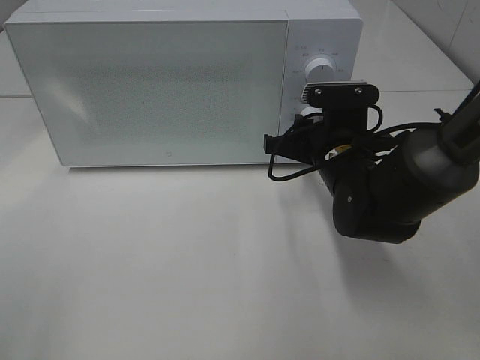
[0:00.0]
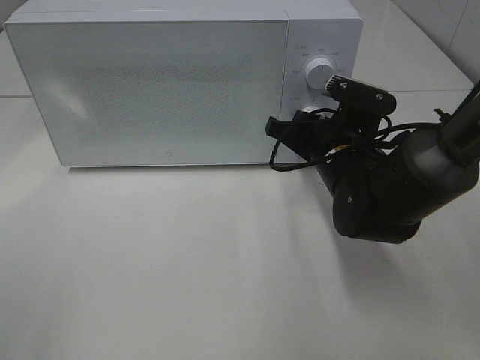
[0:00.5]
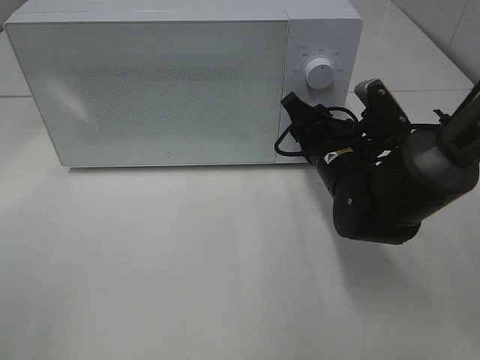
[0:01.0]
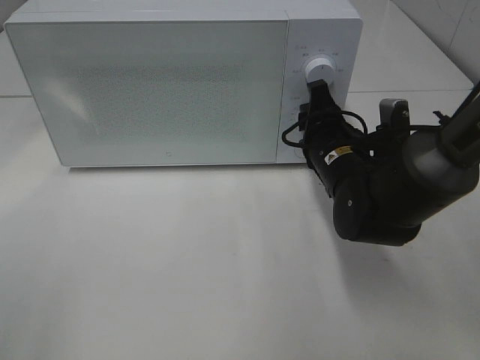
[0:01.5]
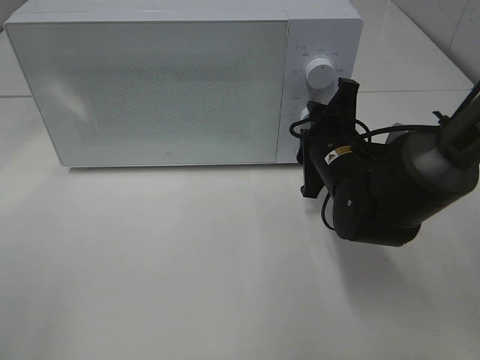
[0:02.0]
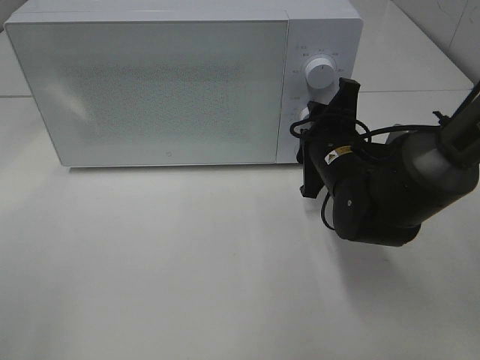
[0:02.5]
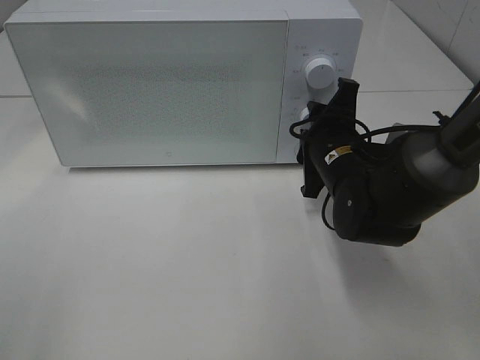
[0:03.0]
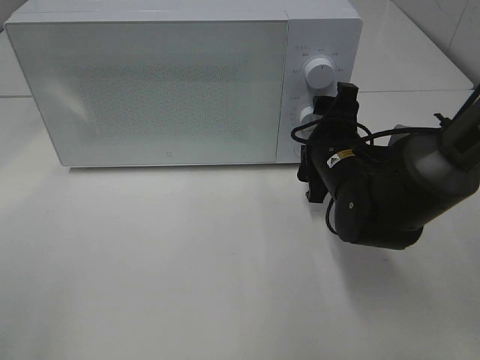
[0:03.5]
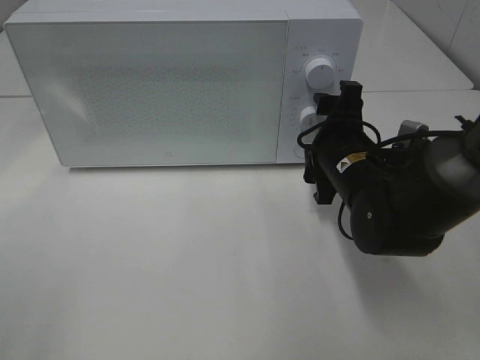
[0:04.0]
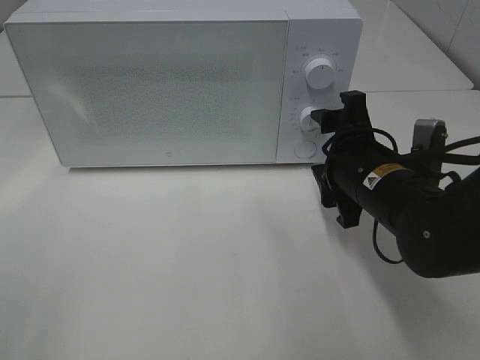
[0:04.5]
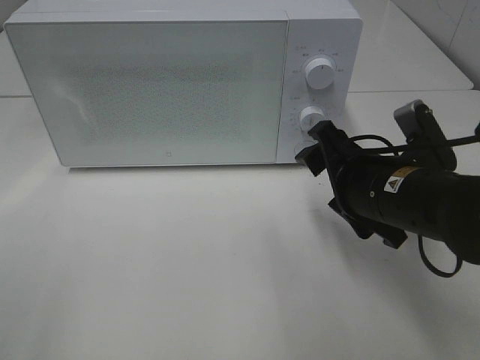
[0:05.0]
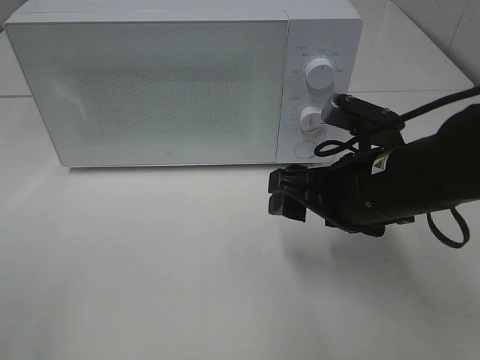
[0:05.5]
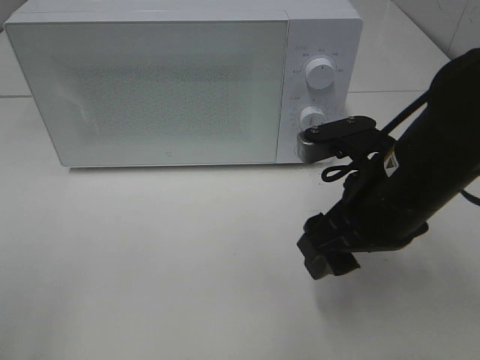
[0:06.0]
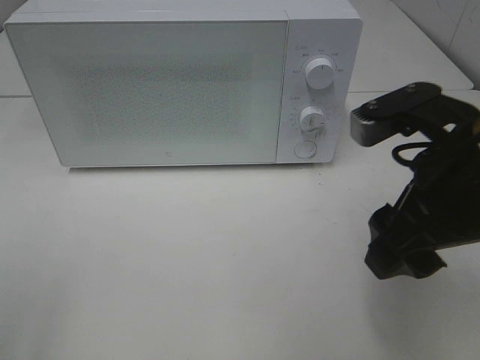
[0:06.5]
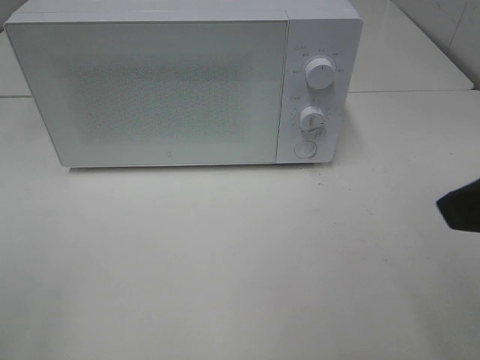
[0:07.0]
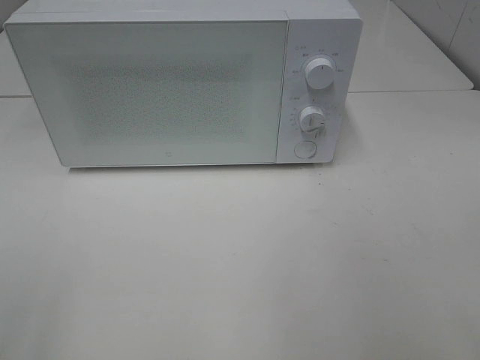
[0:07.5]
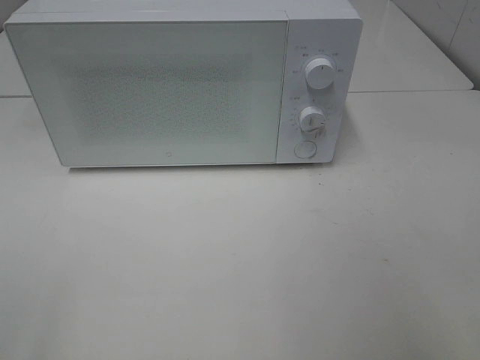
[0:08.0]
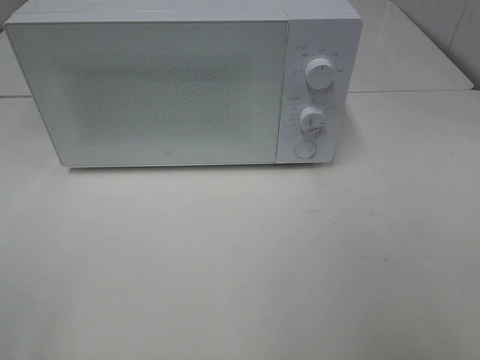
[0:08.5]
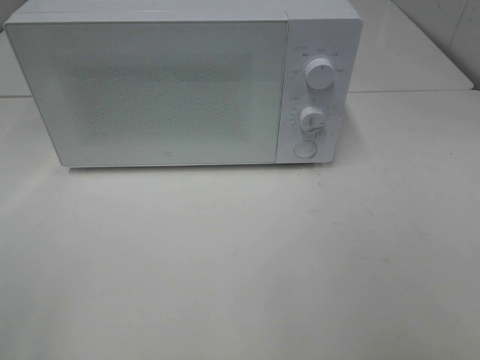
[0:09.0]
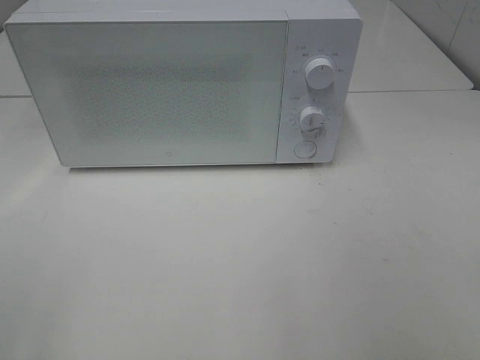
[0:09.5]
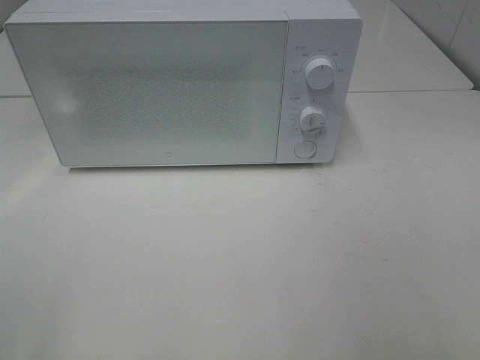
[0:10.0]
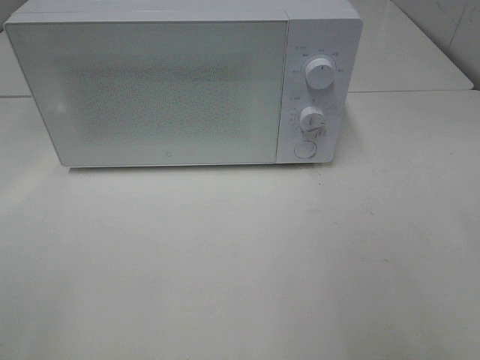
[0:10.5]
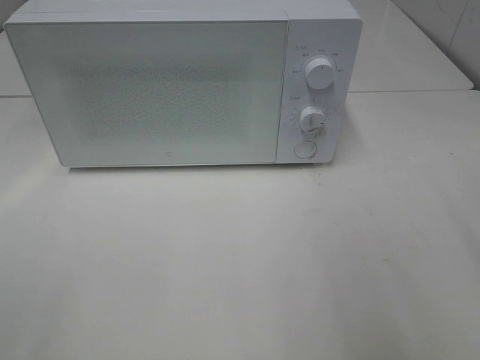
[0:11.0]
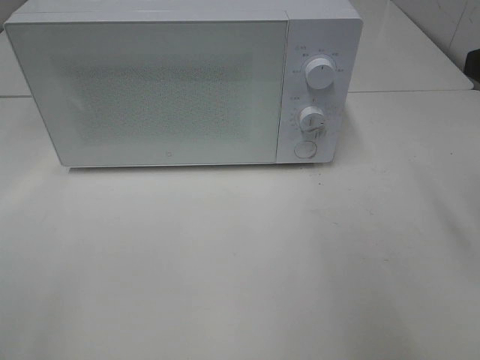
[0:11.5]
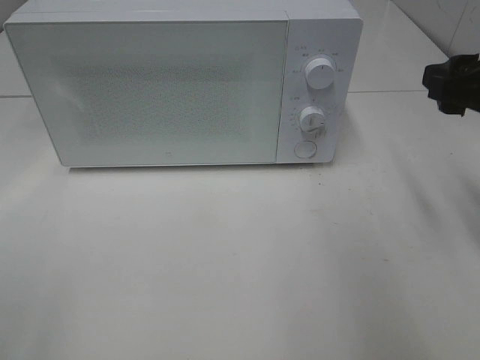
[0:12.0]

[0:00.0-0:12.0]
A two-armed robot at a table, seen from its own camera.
Task of the whole recording: Heat Sandwich.
Step, 0:00.0 to 0:04.0: Right hand: twist timer button.
0:02.0 to 0:04.0: The right gripper opens.
0:04.0 to 0:06.0: The right gripper travels backward and upward by approximately 10 cm.
0:06.0 to 0:08.0: The right gripper moves backward, to the right and upward, roughly 25 cm.
0:10.0 to 0:12.0: The right gripper moves forward, approximately 25 cm.

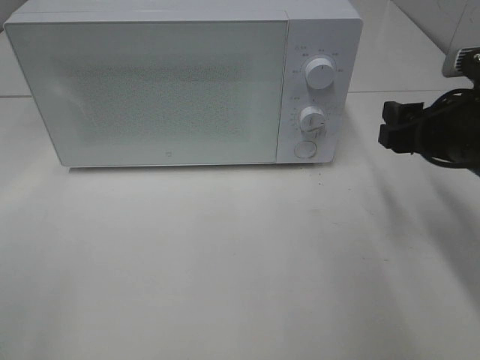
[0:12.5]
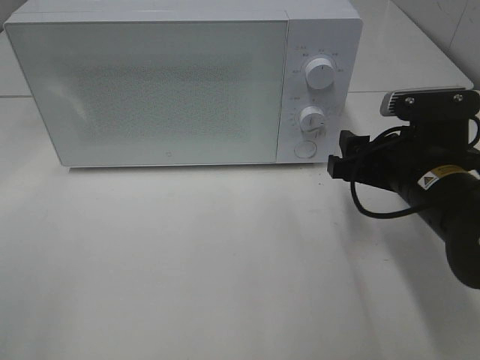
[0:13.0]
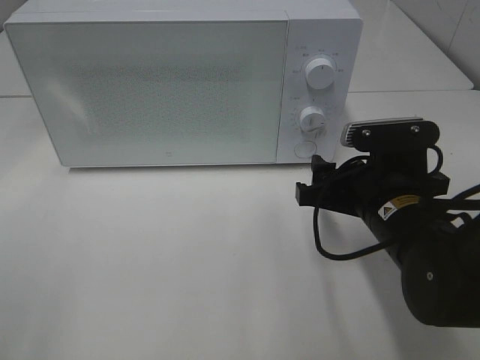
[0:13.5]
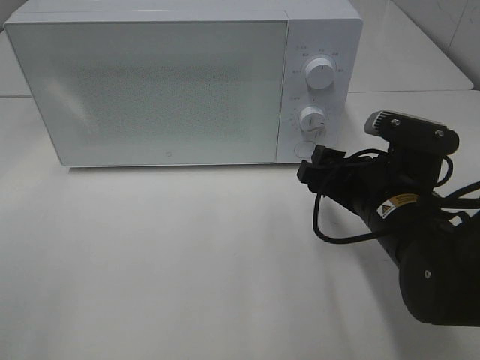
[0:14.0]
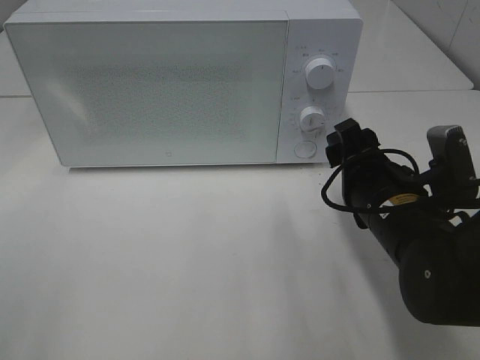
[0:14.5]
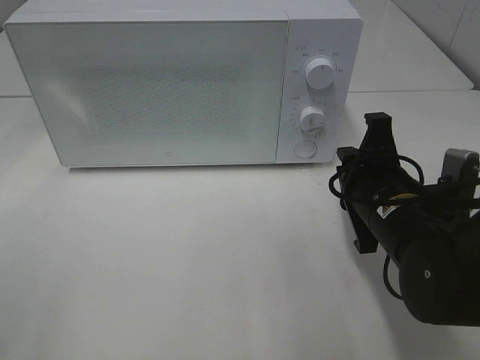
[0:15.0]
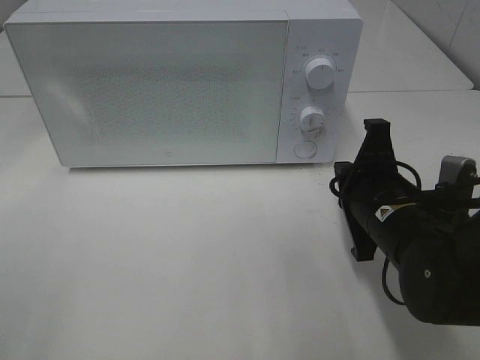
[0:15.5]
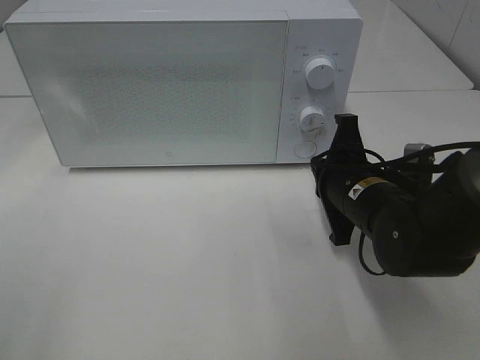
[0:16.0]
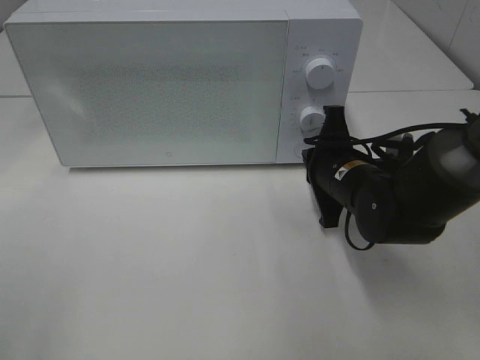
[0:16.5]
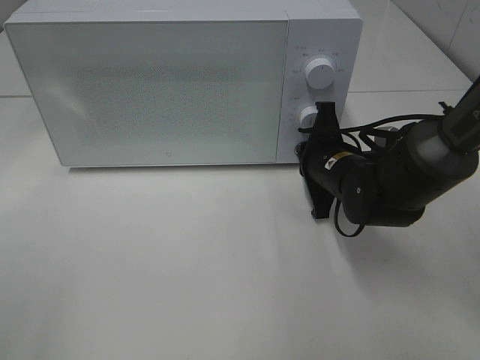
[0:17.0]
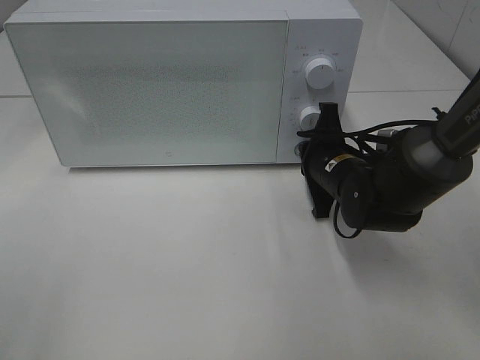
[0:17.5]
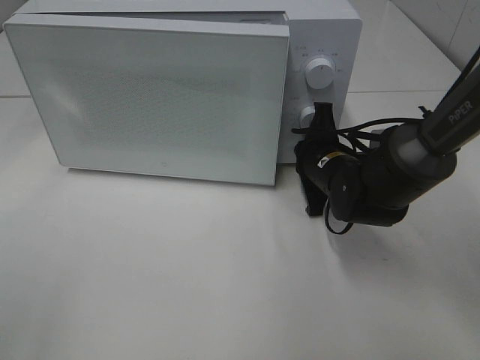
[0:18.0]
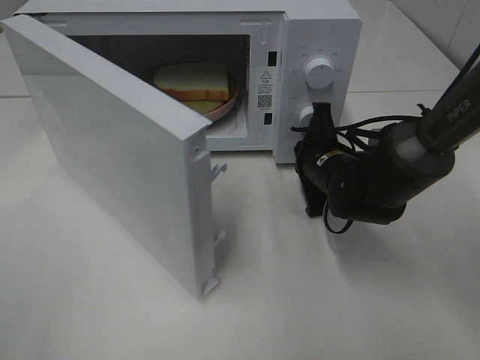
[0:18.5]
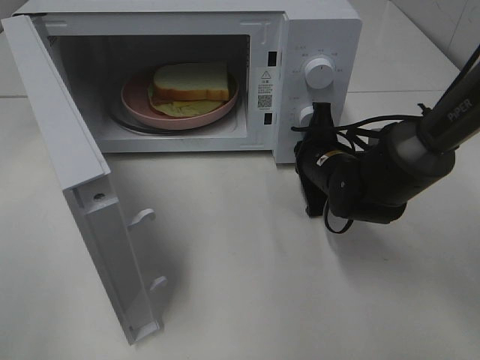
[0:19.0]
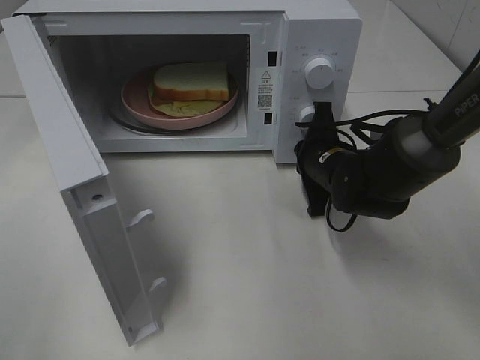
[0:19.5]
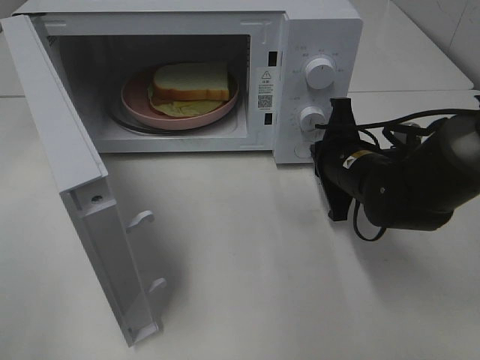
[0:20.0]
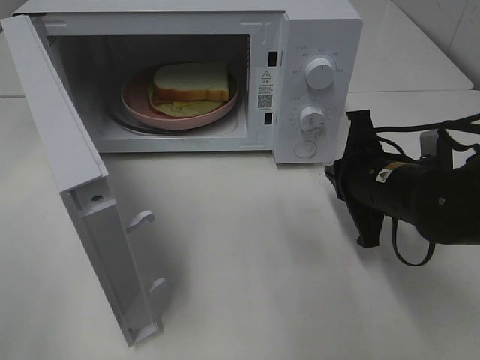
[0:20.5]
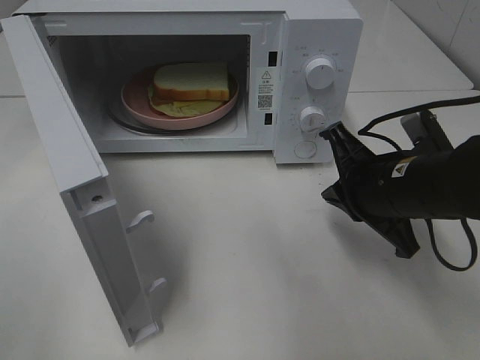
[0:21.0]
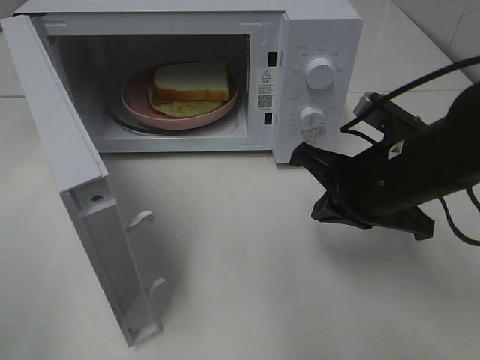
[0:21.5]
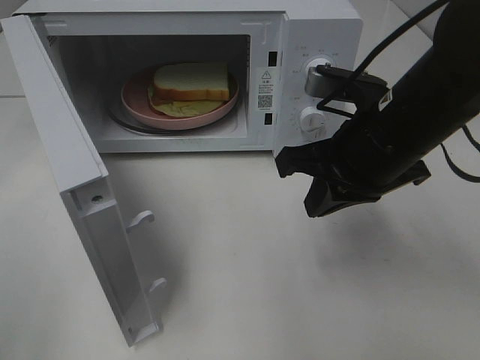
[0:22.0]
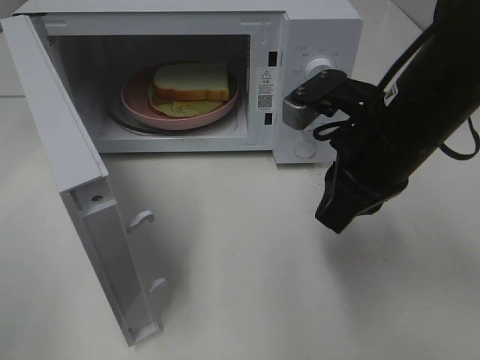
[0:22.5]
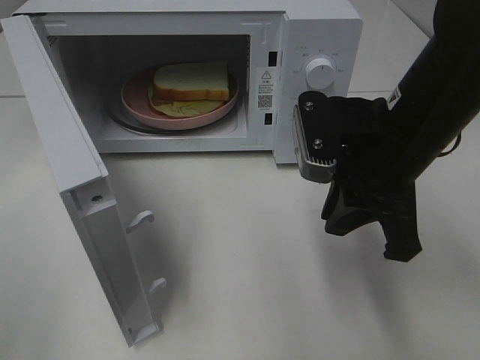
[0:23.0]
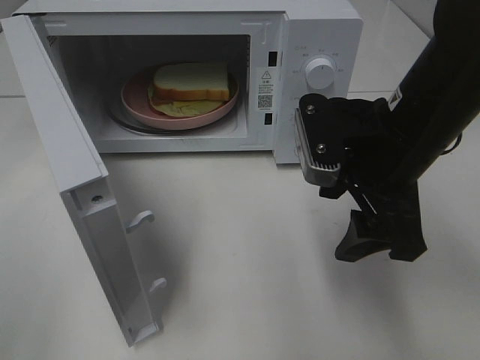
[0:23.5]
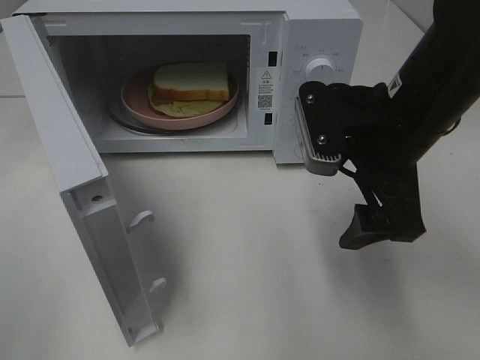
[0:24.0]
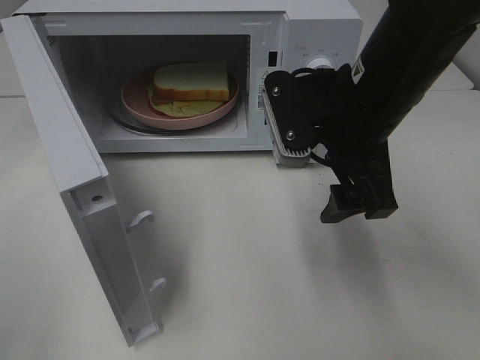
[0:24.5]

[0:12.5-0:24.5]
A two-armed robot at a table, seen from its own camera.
Task of the whole recording: Heat Sandwich.
Step, 0:12.5 to 0:19.5: Right hand: press the switch.
0:12.5 to 0:14.5: The right gripper is displaced to the left and downward by about 10 cm.
0:14.5 to 0:16.5: The right gripper goes some 10 cm forward, and closes.
0:18.5 to 0:20.5: The right gripper shifts approximately 10 cm backward.
0:20.5 to 0:22.5: The right gripper goes some 10 cm upward.
0:22.5 to 0:24.5: The right gripper opens.

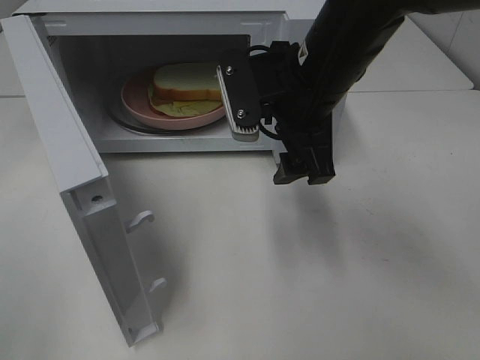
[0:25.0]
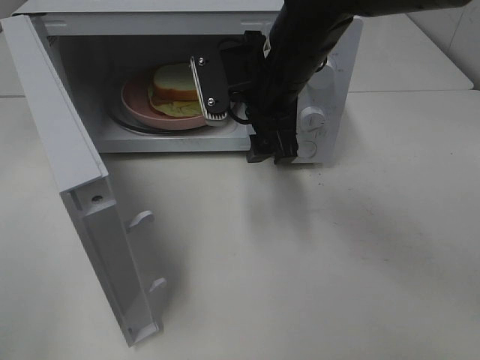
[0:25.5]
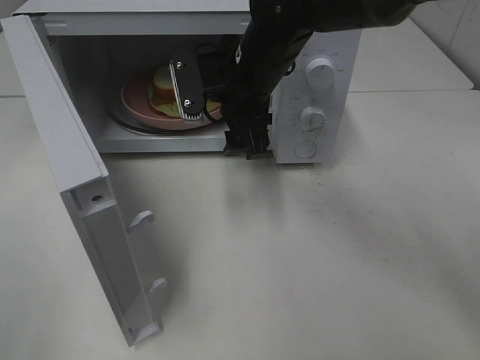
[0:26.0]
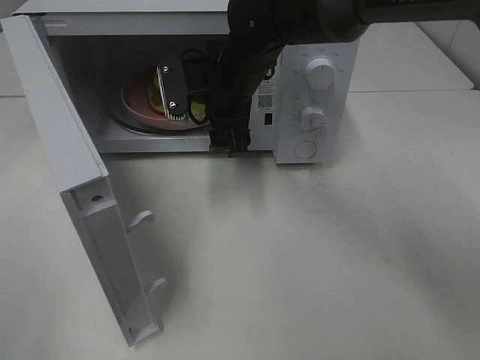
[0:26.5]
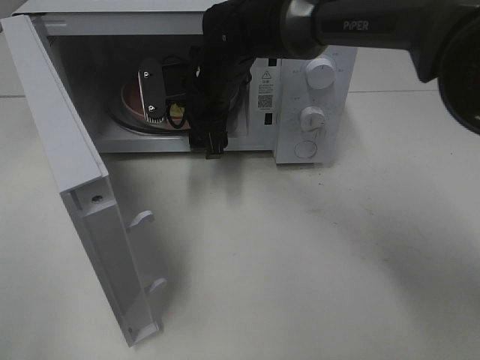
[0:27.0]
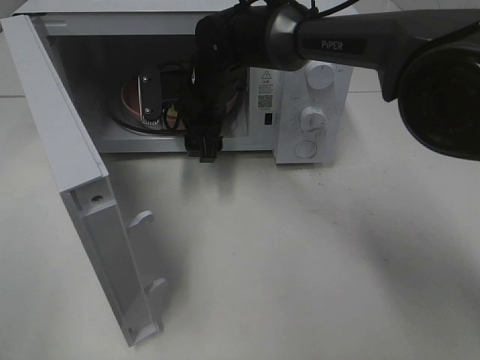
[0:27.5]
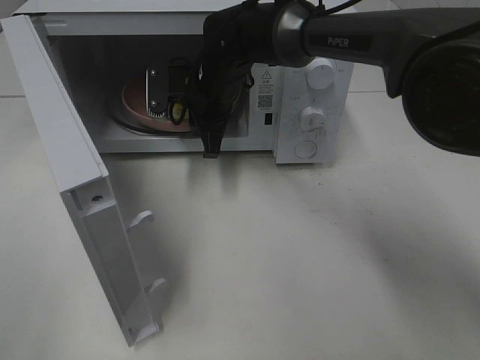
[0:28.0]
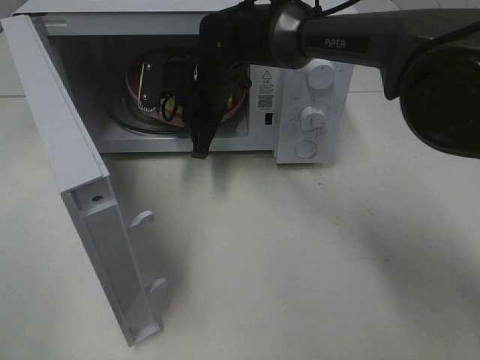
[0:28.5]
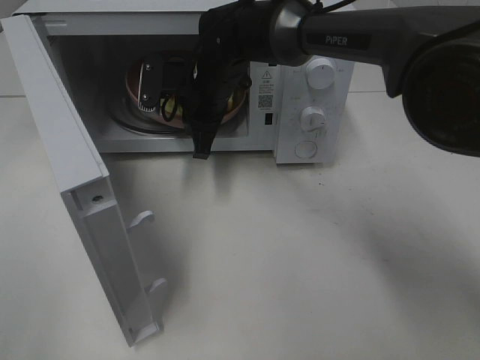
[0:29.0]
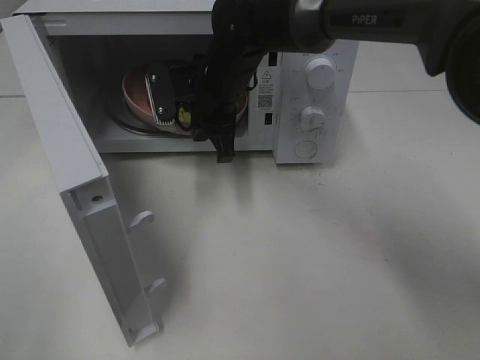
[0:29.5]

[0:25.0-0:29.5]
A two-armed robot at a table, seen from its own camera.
Task of the whole recording: Heat Sandwich.
Step, 0:25.0 to 0:28.5: Right hand: grab the plate with the sandwich.
0:25.0 to 0:27.0: The right gripper moves forward, to the left and downward, about 15 cm.
0:27.0 to 0:29.5: The right gripper closes up.
